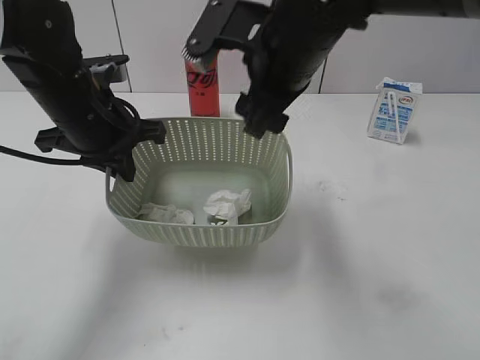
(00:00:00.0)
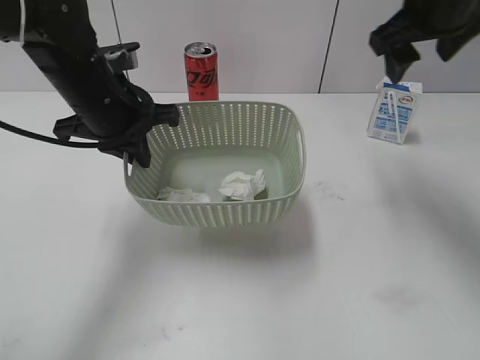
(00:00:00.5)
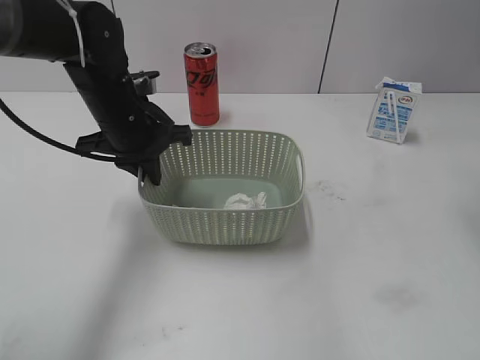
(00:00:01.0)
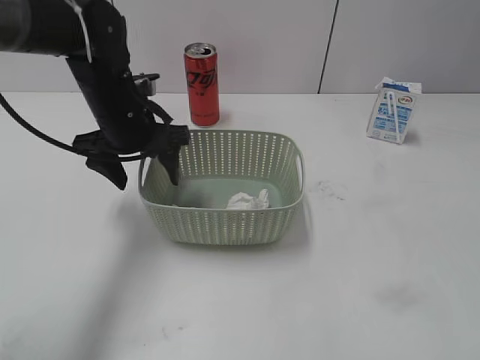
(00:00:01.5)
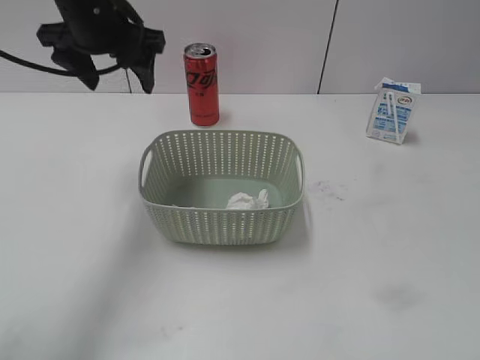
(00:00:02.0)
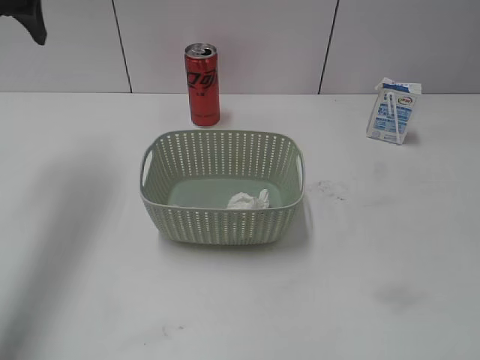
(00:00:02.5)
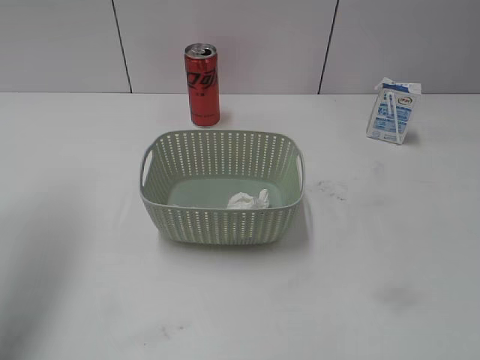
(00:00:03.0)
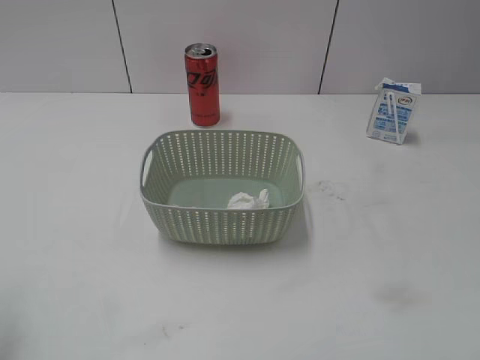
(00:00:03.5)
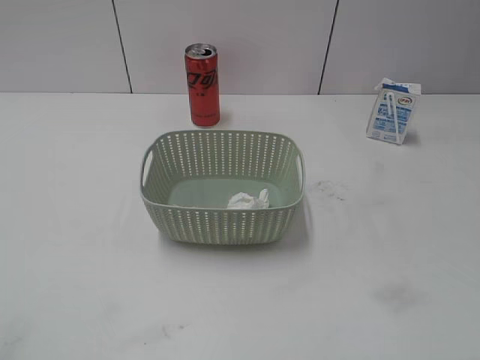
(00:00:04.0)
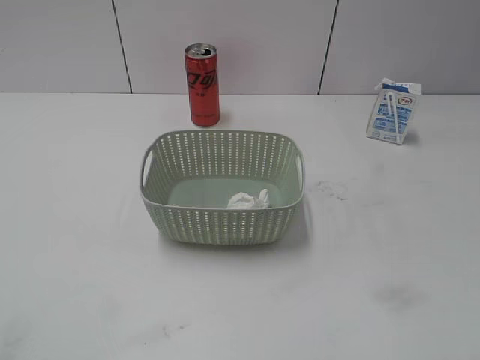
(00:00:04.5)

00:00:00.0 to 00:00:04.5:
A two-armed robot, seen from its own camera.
Step, 00:00:00.0 to 00:00:01.0: Place the basket on the table with left gripper.
00:00:00.0 to 00:00:02.0: The left gripper goes about 10 cm forward and upward, and opens up. Meanwhile the right gripper is displaced to the right and backward by about 35 cm.
00:00:02.0 to 00:00:04.5: The left gripper moves backward and to the left, about 40 cm.
